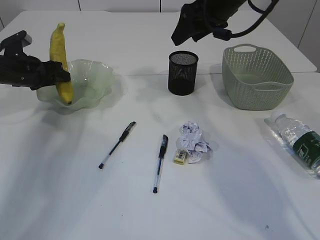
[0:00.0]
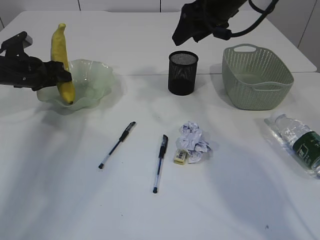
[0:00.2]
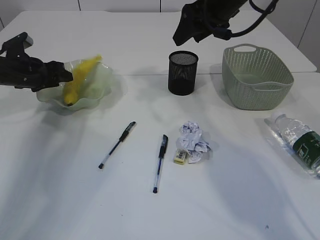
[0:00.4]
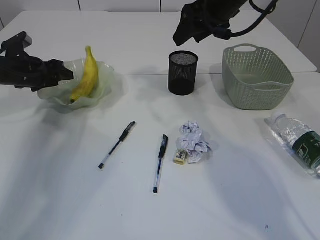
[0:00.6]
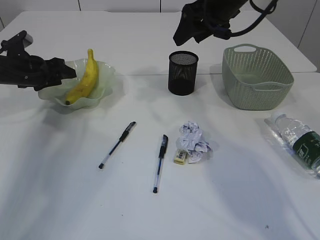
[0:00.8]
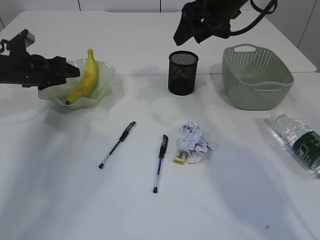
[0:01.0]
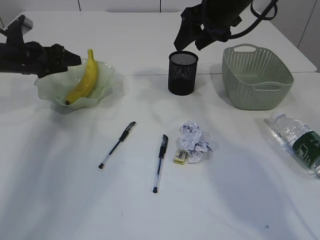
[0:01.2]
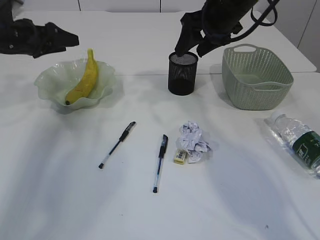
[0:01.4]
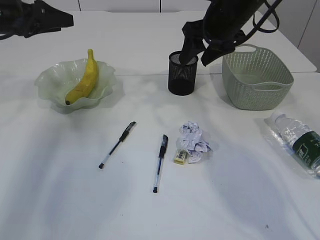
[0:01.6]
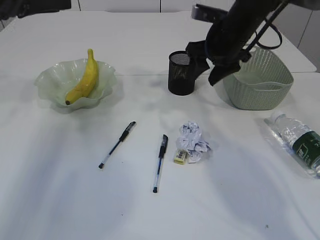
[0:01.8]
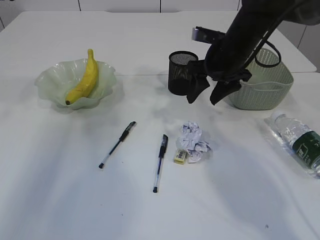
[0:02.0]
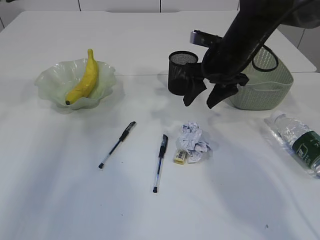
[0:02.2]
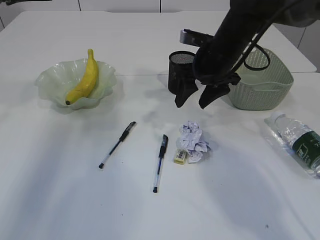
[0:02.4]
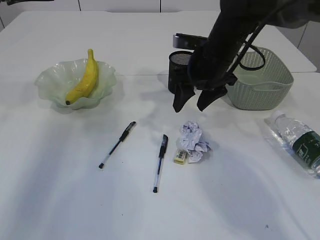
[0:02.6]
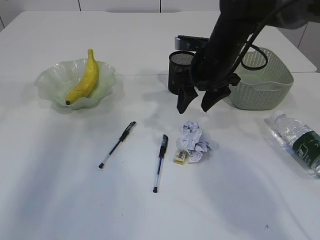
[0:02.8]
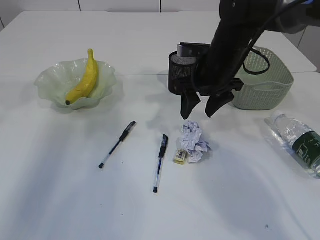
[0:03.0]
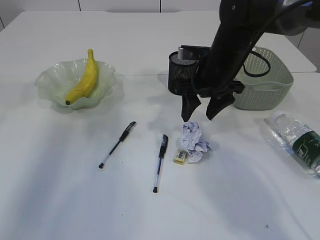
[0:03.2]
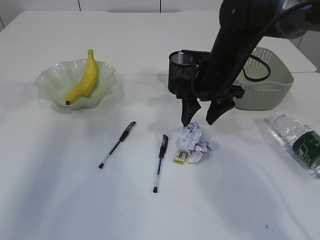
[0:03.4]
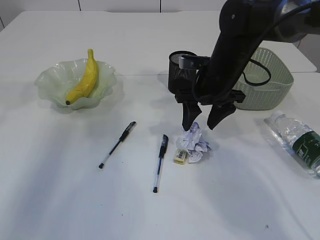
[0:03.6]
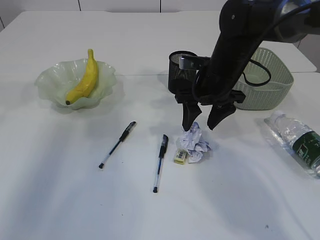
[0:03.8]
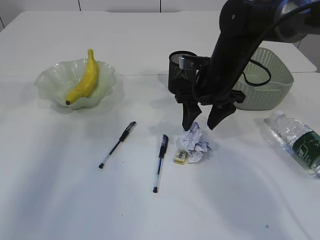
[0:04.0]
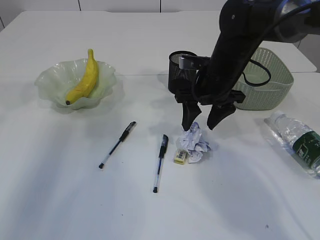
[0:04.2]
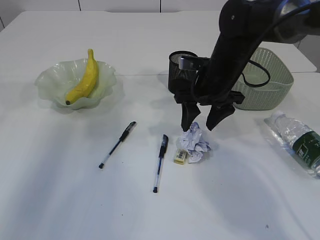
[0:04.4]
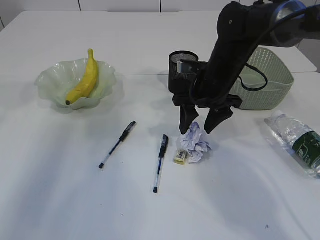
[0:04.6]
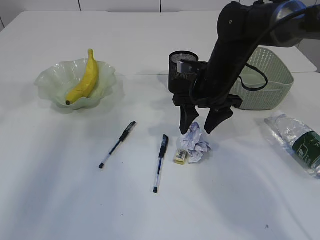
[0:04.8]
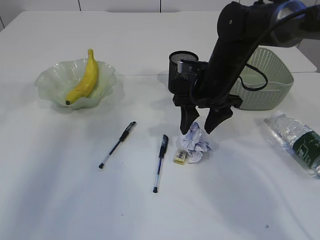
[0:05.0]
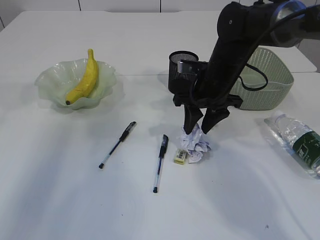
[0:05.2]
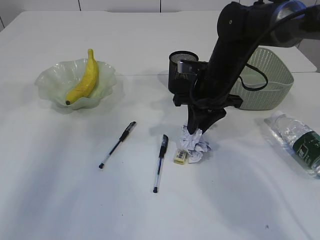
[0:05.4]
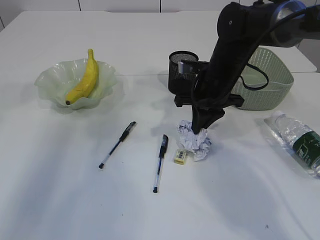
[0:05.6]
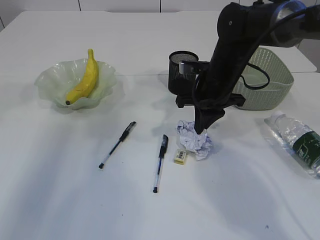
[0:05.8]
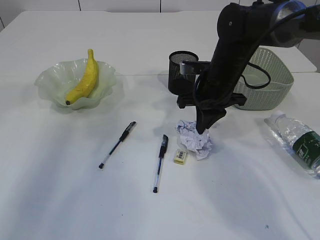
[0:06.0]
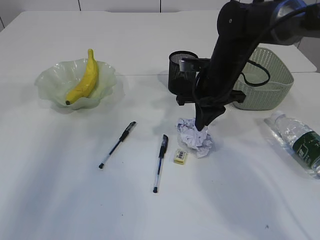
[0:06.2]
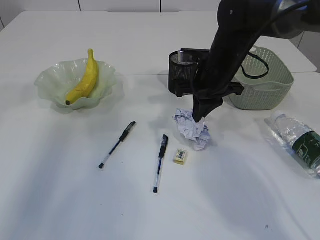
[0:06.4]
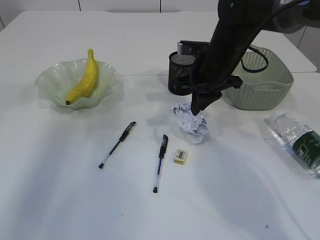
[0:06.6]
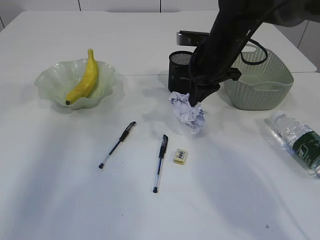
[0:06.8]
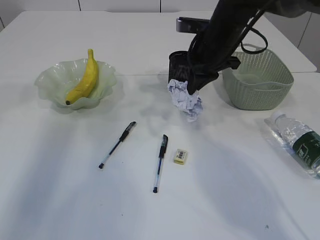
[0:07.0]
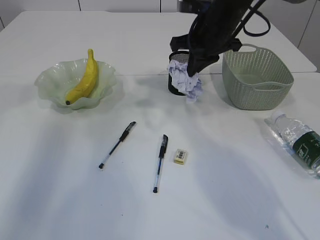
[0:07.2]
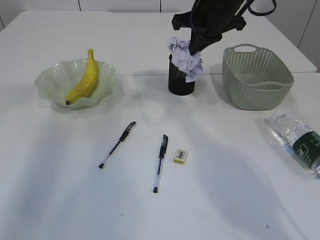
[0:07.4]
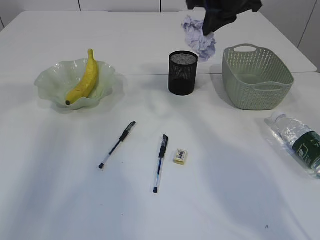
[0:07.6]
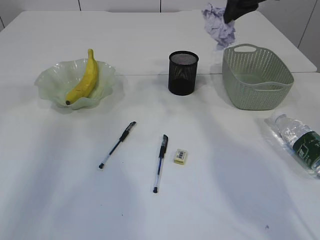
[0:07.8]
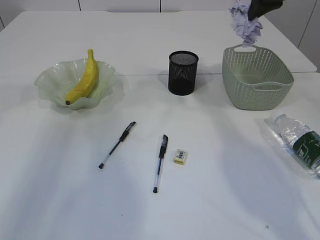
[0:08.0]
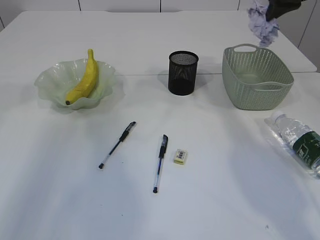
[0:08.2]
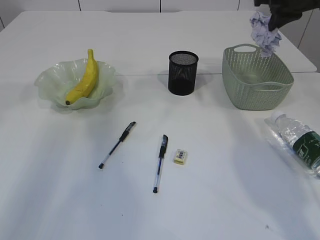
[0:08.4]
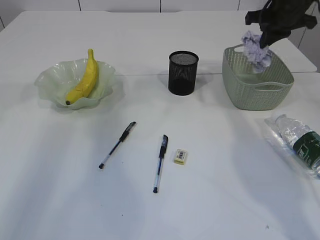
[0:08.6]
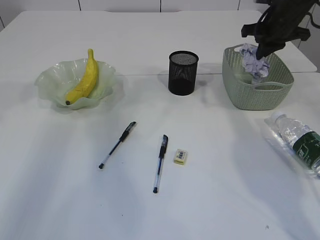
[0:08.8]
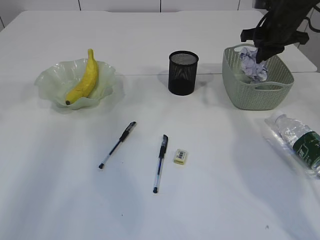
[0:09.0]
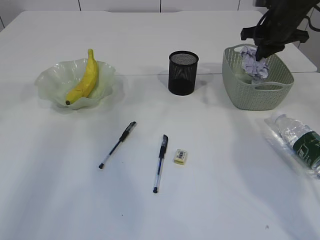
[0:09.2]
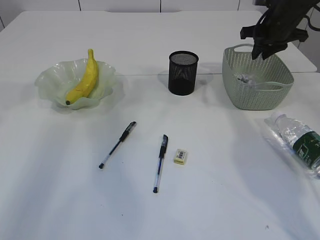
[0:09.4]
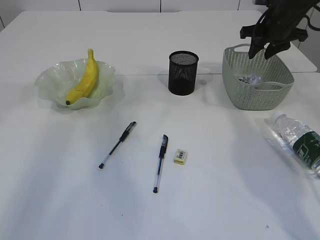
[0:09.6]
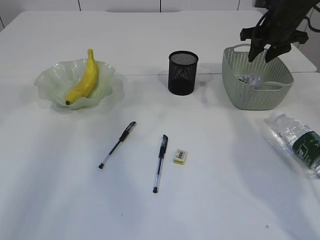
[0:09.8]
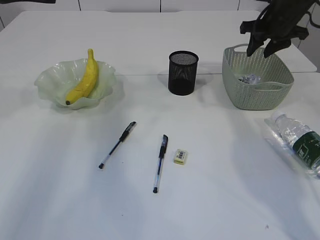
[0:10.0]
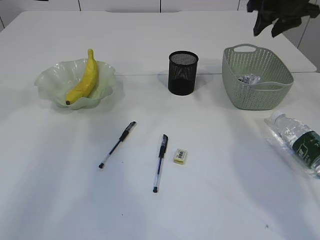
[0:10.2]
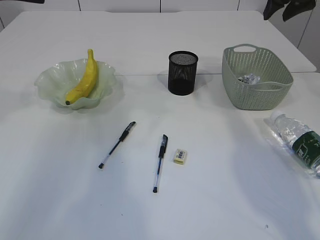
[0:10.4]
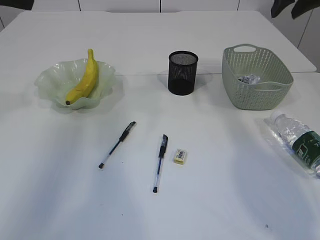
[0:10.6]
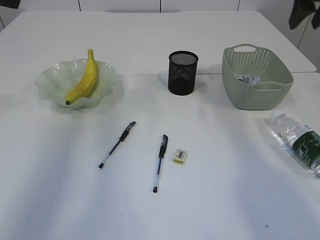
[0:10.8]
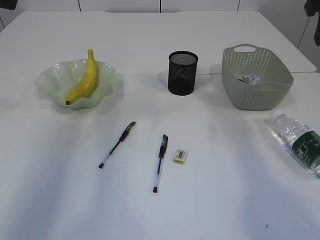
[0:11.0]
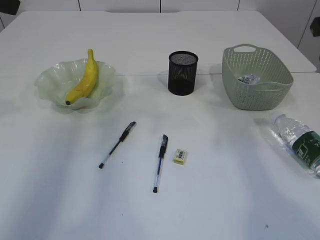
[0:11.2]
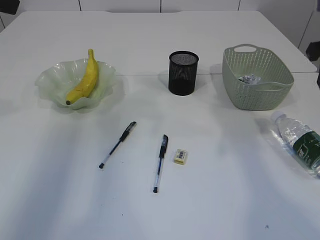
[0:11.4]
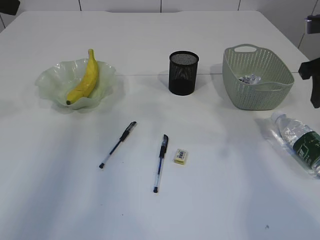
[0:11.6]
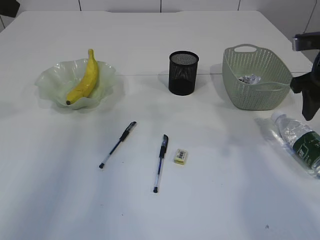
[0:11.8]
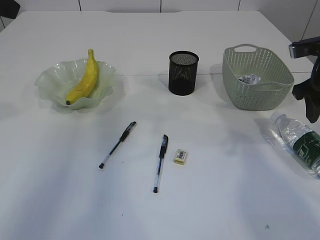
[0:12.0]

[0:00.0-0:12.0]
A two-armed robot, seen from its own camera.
Step, 0:01.4 to 0:06.8: Pick up the waste paper.
Step, 0:07.0 to 0:10.0: Place the waste paper in the basket.
0:00.0 to 0:01.6: The left gripper shifts about 10 cm upward, and opens.
0:01.6 to 0:03.0: The right gripper is displaced downward by approximately 10 cm, while the left gripper moves upward and backward, approximately 10 cm.
0:03.0 to 0:04.4: There are only small adjustments of the grippers.
0:04.4 to 0:06.0: The right gripper closes up.
0:06.0 to 0:07.6: The right gripper is displaced upward by some 15 cm.
0:07.6 to 0:09.0: The right gripper is displaced to the right, downward and forward by approximately 15 cm.
0:09.0 to 0:10.4: The right gripper travels upward by roughly 10 cm, and opens.
0:10.4 to 0:12.0: The right gripper travels backward and downward by some 15 cm.

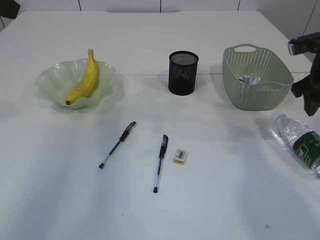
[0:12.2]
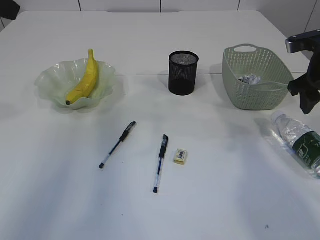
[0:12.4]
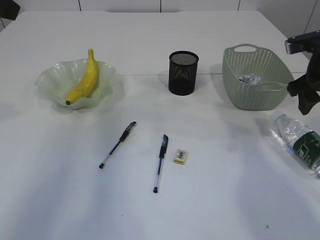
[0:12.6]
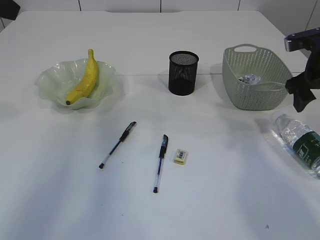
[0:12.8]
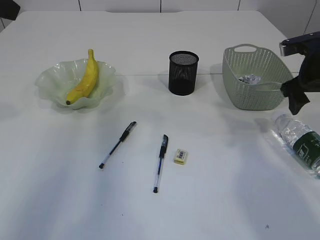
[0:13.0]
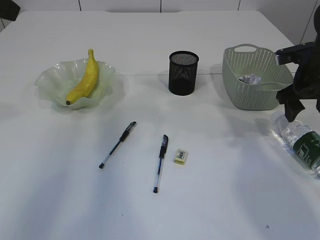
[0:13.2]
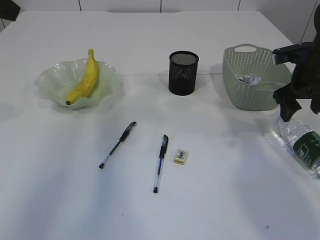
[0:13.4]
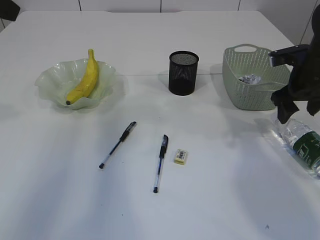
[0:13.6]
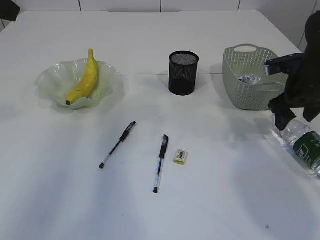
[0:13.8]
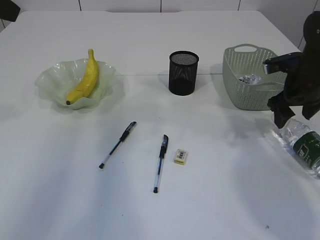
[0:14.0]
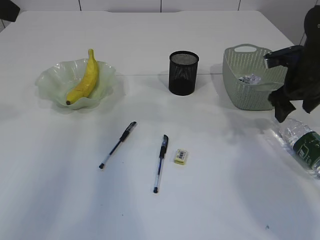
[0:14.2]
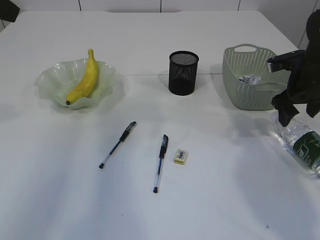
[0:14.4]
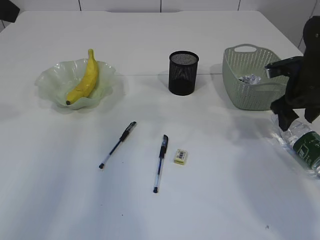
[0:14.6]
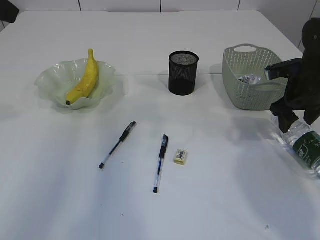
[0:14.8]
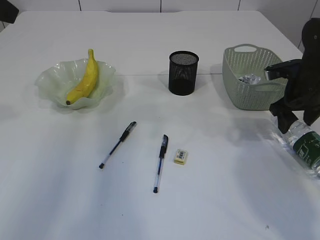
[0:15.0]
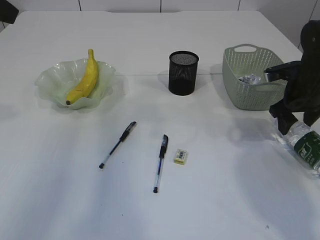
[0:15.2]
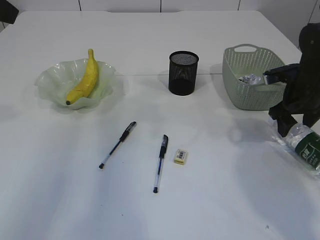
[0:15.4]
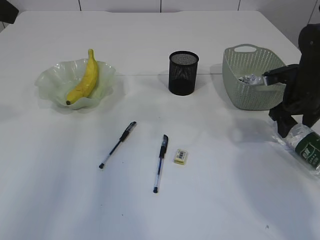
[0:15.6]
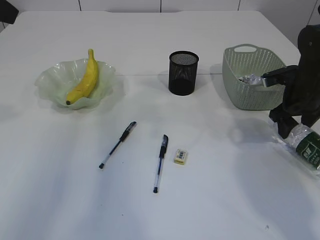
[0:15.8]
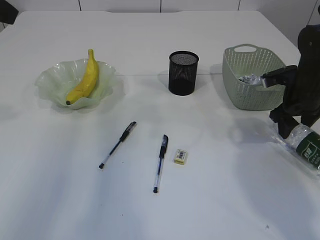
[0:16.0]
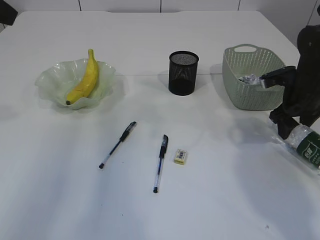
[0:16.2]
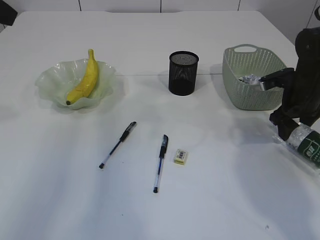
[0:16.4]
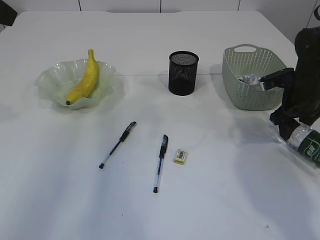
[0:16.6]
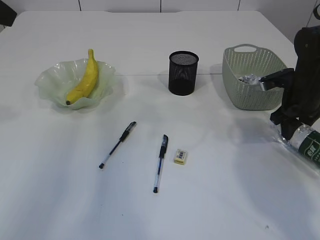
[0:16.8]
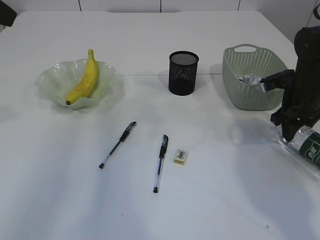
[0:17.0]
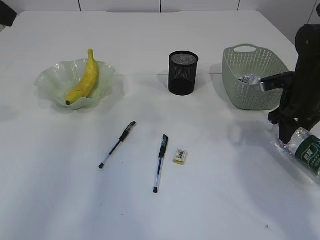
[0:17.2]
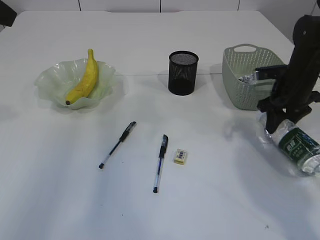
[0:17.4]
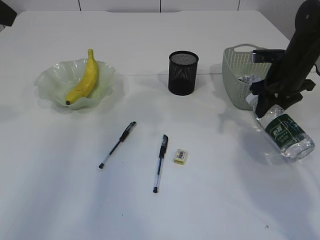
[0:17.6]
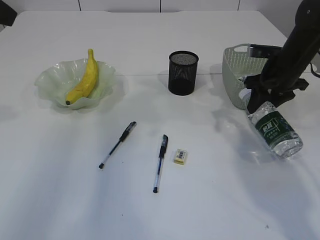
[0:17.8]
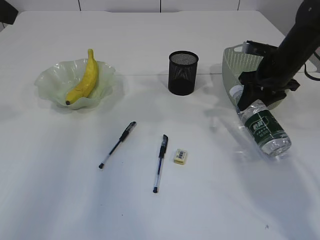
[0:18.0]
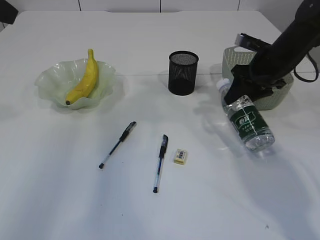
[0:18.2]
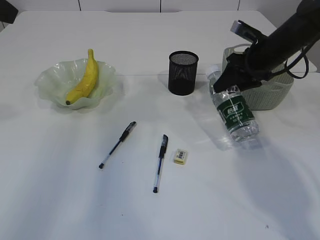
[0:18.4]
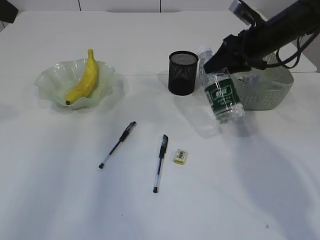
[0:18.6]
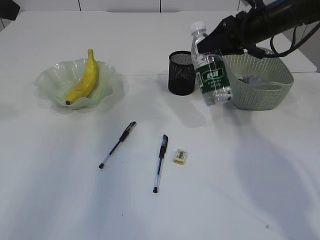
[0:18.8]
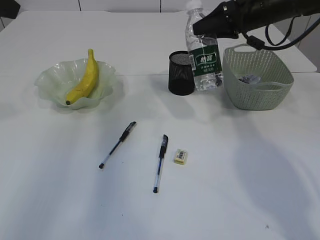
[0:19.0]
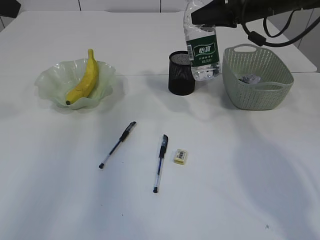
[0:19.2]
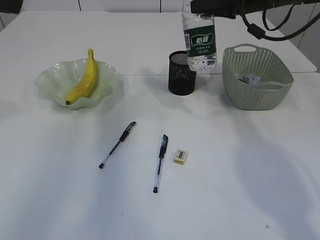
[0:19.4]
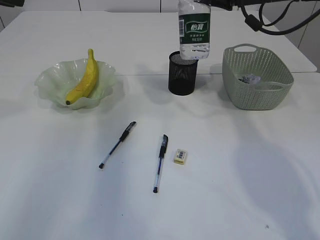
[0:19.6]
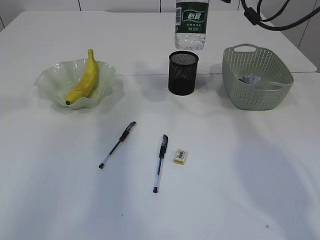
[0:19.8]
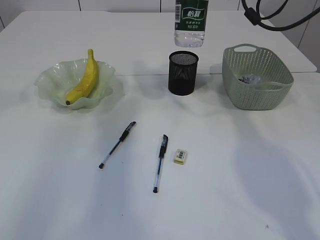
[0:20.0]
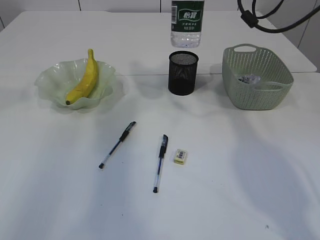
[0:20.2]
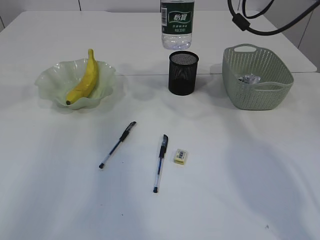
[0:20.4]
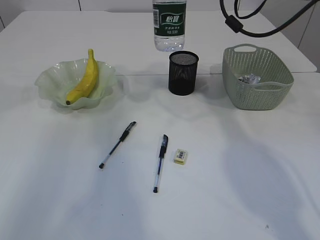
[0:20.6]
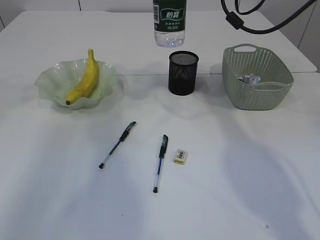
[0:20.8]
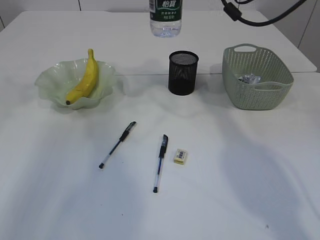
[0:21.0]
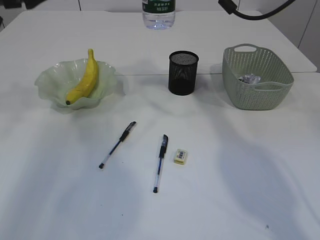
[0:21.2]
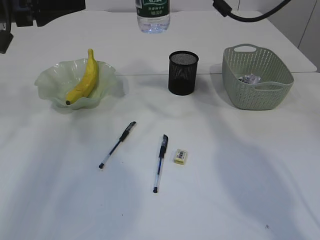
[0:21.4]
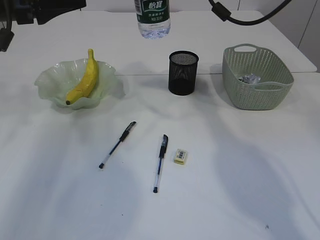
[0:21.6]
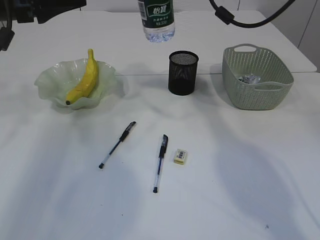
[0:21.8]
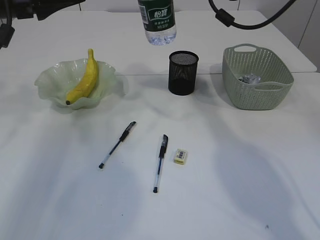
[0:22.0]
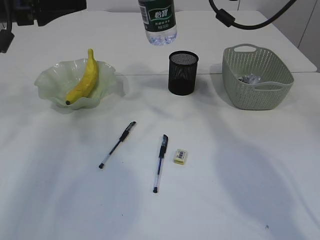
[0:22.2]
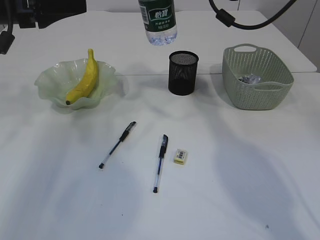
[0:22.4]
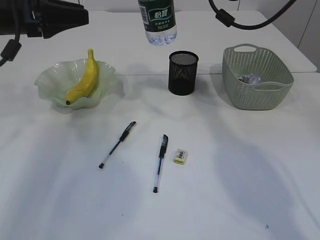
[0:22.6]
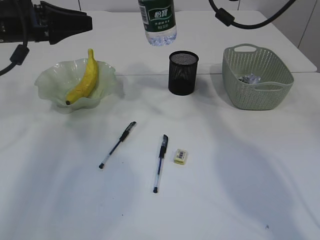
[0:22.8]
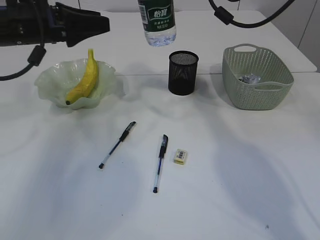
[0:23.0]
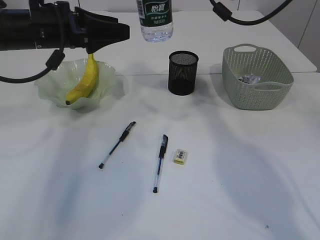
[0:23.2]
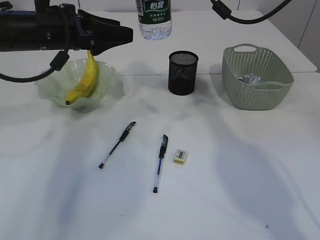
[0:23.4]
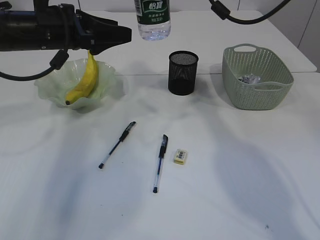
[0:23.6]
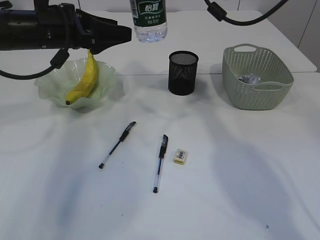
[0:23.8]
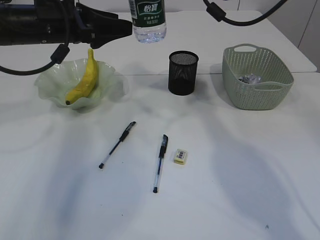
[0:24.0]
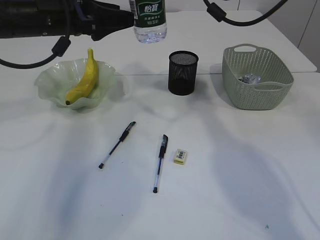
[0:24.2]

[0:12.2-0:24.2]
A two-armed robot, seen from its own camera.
Step, 0:12.2 to 0:18.2: Pick up the bottle with the right arm.
0:12.2 to 0:13.8: The right gripper moves downward, approximately 5 cm.
0:13.8 to 0:16.6: The grippers move only a little.
0:16.6 to 0:18.2: The right gripper shifts roughly 10 cm to the left and upward.
0:18.2 to 0:19.8: The right gripper shifts some 15 cm upward.
0:19.8 to 0:21.2: The right gripper heads to the left, covering about 5 cm. The left gripper is displaced downward and forward by roughly 10 cm.
0:21.2 to 0:22.6: The grippers move only a little.
0:22.6 to 0:24.2: The left gripper shifts about 5 cm to the right, and opens.
